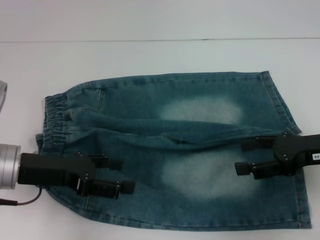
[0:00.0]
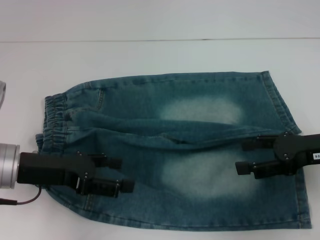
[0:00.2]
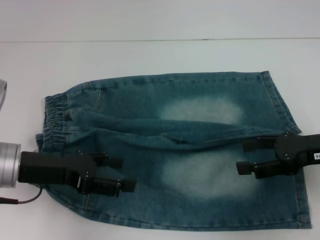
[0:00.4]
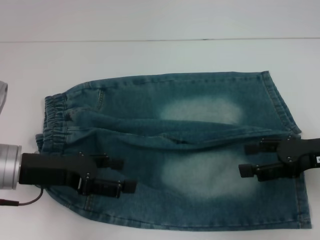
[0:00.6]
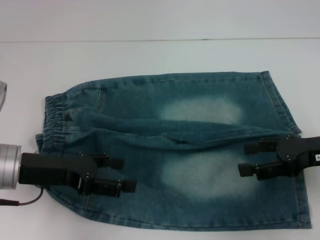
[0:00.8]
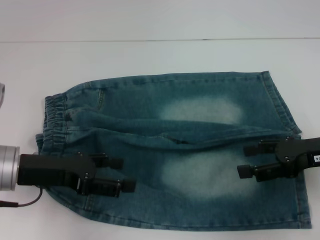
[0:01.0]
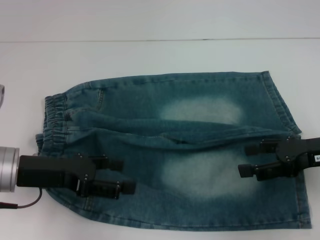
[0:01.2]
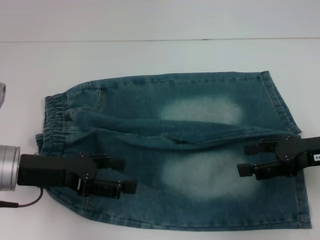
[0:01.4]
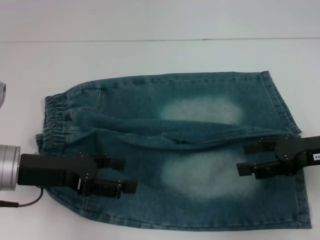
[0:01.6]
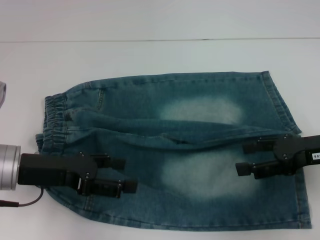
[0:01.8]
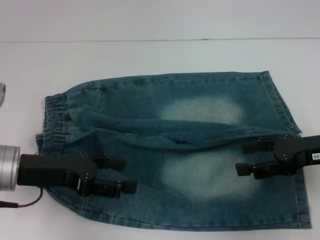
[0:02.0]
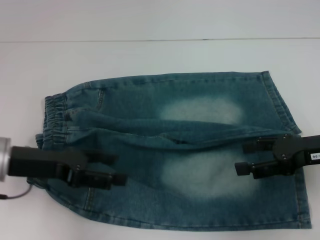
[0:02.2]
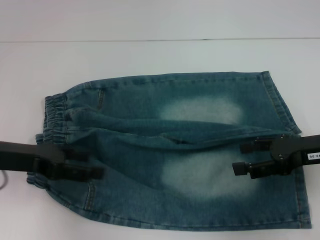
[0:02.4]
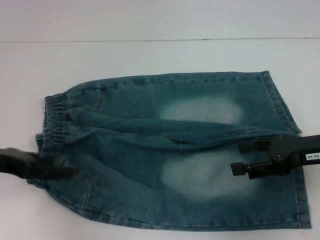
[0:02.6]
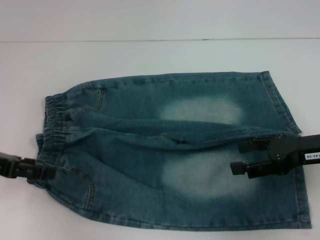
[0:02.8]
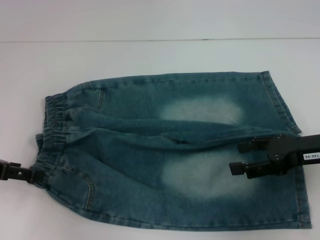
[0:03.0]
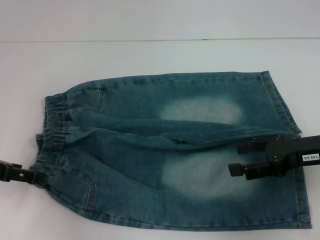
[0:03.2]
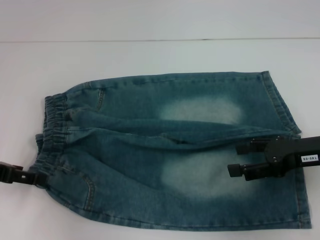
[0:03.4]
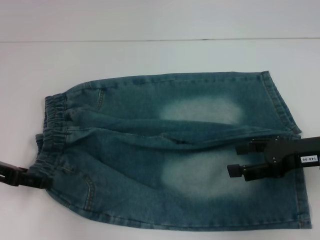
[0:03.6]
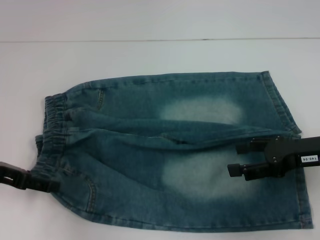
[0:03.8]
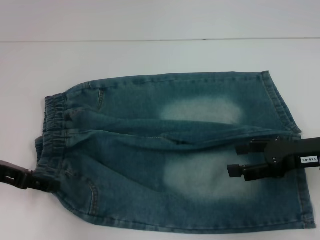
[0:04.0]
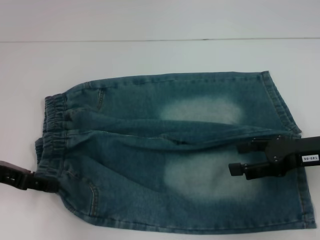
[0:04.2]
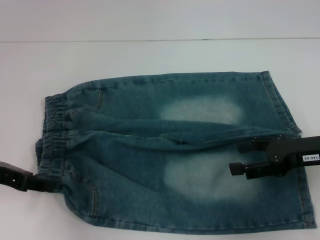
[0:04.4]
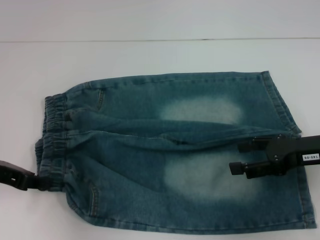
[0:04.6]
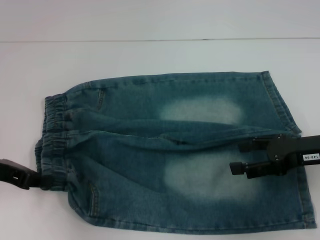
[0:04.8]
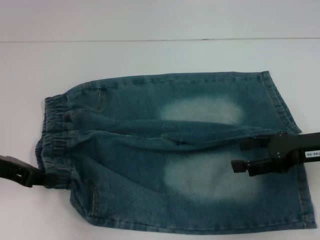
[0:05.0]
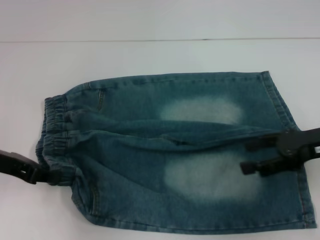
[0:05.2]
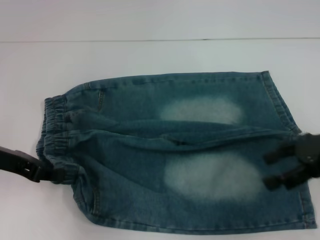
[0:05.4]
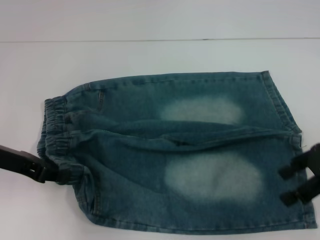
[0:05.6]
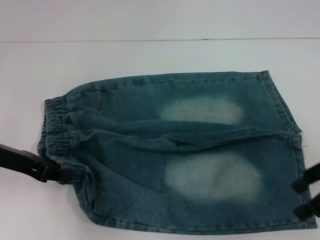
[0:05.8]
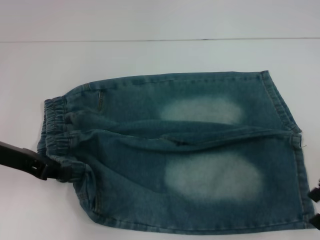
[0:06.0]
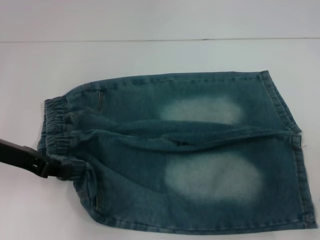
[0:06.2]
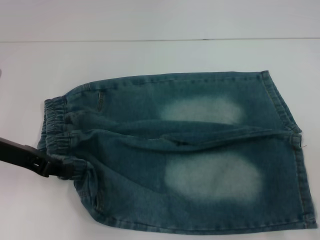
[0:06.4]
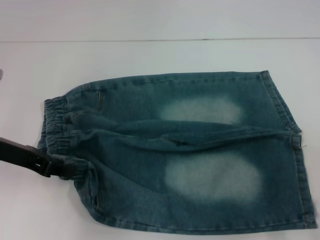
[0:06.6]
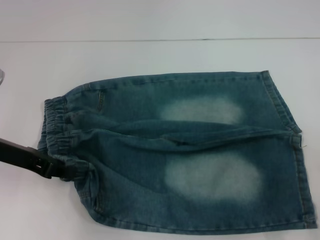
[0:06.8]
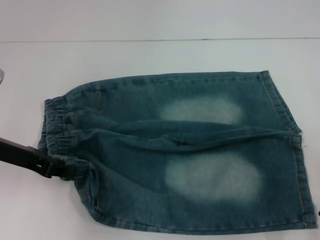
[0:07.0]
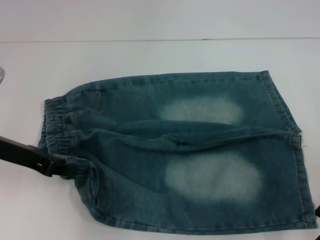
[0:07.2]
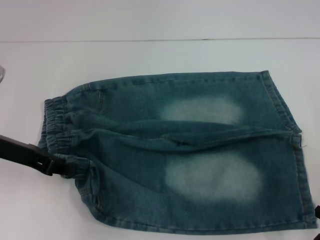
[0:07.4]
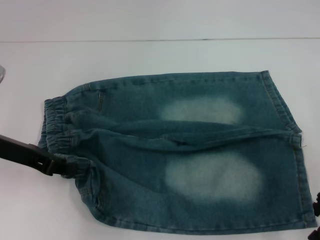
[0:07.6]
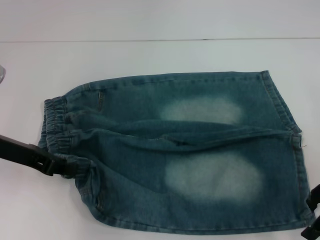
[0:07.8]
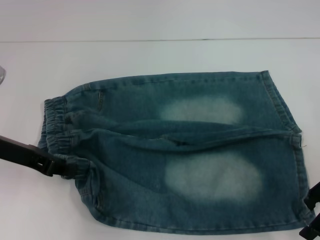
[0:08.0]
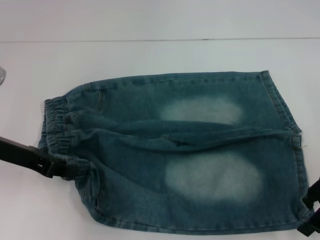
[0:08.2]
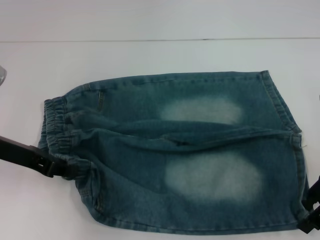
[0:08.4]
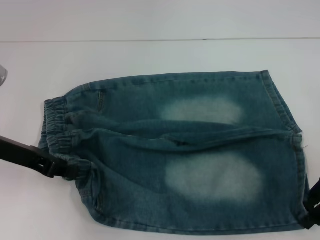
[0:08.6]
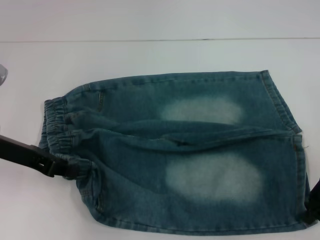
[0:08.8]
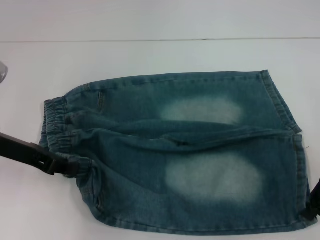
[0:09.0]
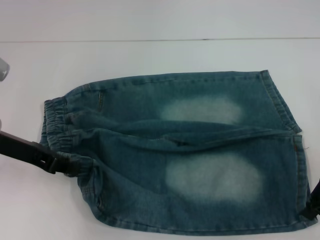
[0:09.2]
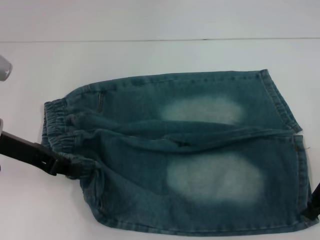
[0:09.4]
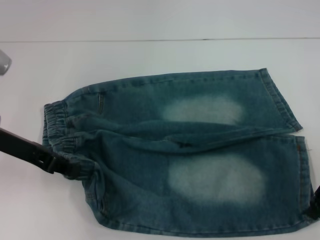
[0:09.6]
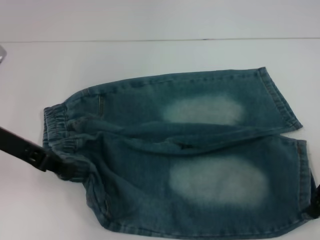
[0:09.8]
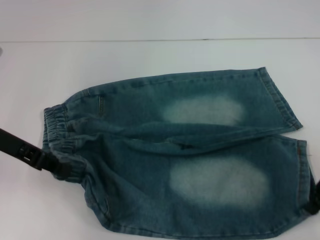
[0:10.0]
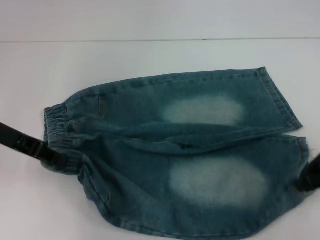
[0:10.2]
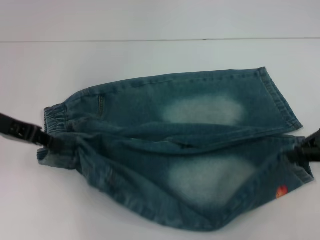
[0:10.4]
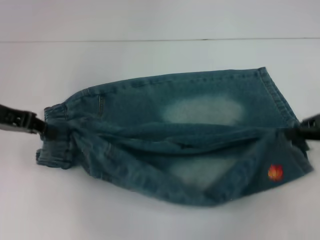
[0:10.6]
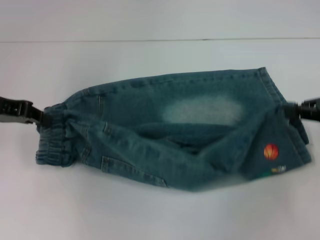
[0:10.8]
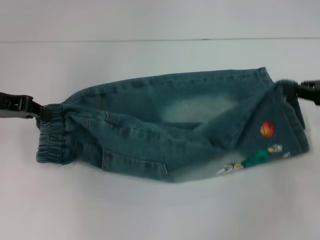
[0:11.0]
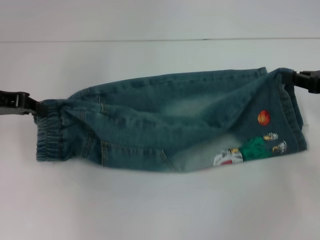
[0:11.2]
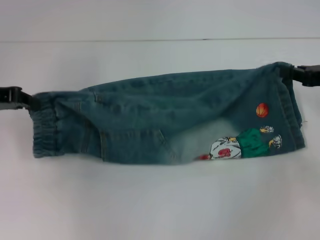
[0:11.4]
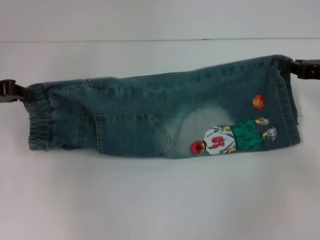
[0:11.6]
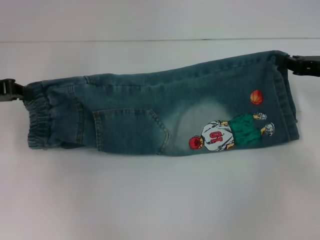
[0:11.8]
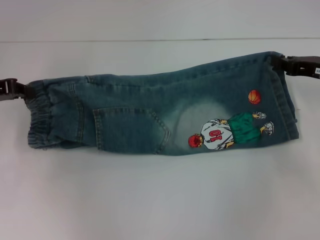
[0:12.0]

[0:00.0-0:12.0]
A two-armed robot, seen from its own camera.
Step, 0:00.0 to 0:03.8: Hold the lower left waistband with your left hand.
Step, 0:04.0 to 0:08.6: Grab the lower right pant leg with your right hand.
0:00.0 to 0:01.6: Both grippers stay about where they are.
0:01.6 to 0:03.0: The left gripper heads to the left, covering approximately 10 cm.
0:03.0 to 0:04.4: The left gripper closes up.
0:04.4 to 0:06.0: The right gripper is displaced upward by approximately 5 cm; the left gripper closes.
0:06.0 to 0:07.6: The grippers make only small movements.
0:07.6 to 0:09.0: The right gripper closes.
0:10.4 to 0:12.0: The right gripper travels forward by approximately 5 cm, while the left gripper moves about 5 cm.

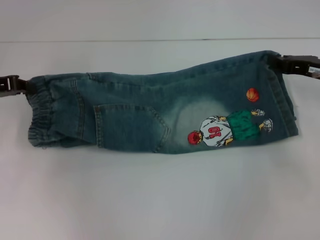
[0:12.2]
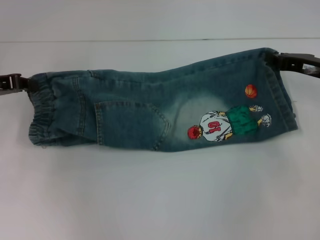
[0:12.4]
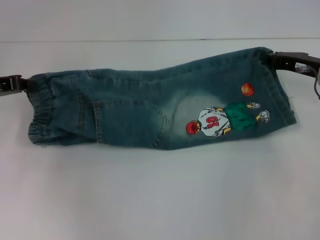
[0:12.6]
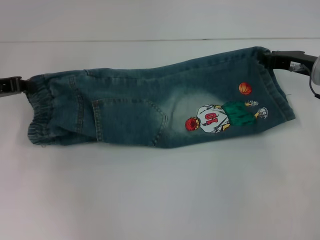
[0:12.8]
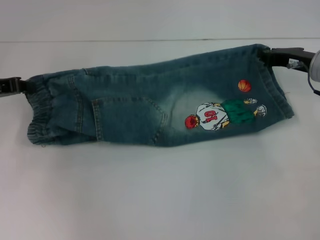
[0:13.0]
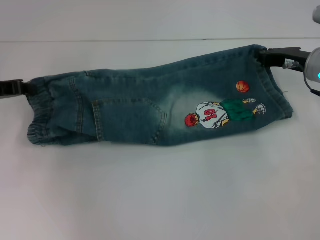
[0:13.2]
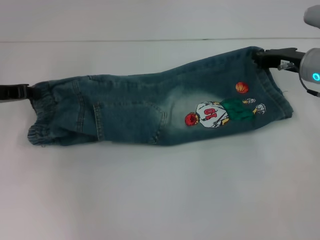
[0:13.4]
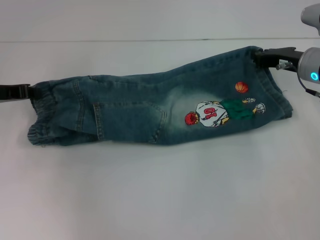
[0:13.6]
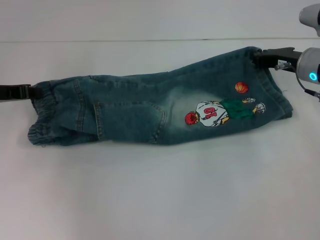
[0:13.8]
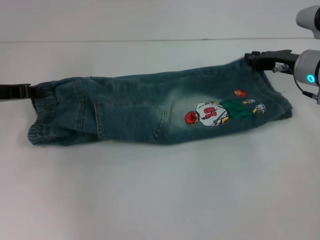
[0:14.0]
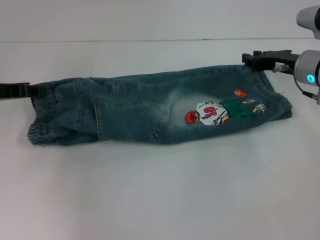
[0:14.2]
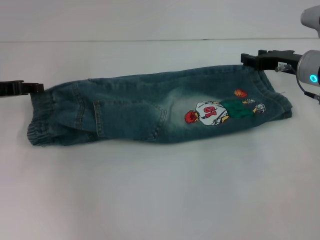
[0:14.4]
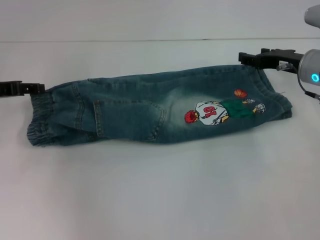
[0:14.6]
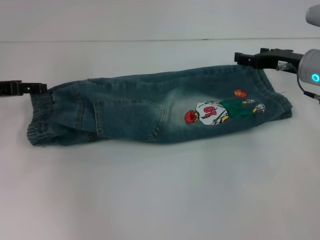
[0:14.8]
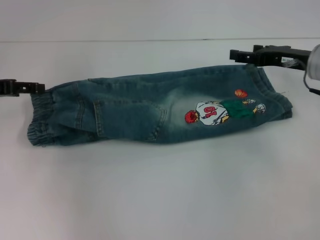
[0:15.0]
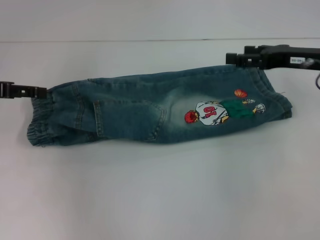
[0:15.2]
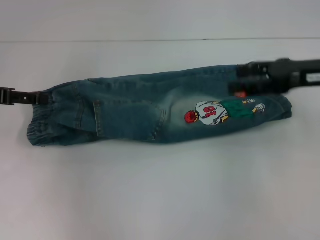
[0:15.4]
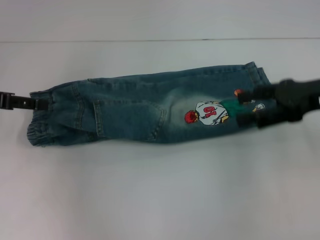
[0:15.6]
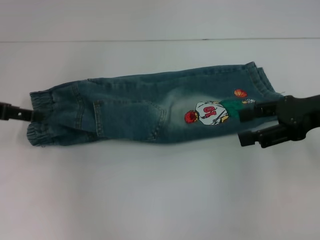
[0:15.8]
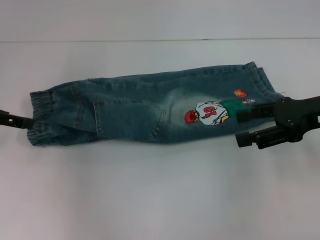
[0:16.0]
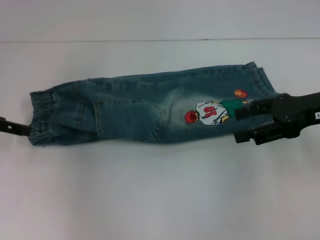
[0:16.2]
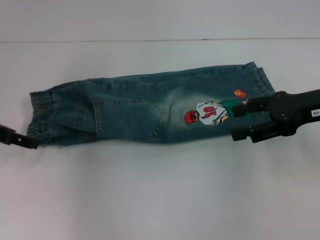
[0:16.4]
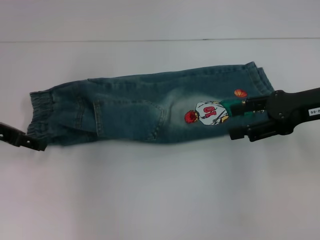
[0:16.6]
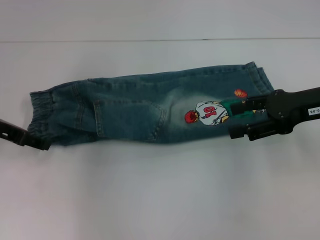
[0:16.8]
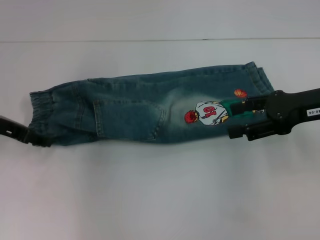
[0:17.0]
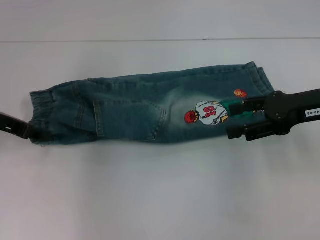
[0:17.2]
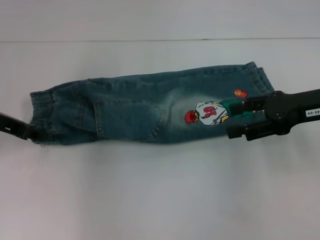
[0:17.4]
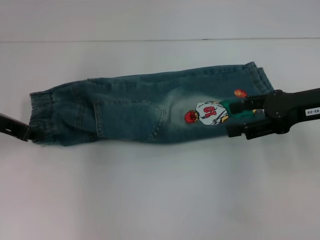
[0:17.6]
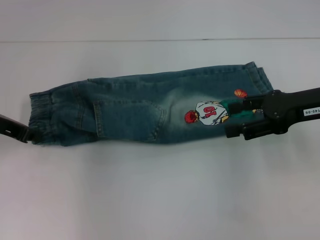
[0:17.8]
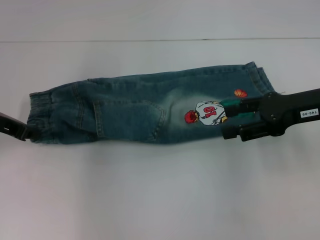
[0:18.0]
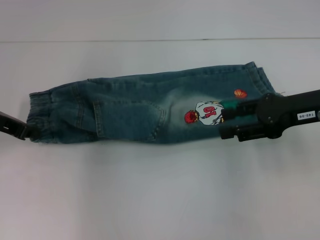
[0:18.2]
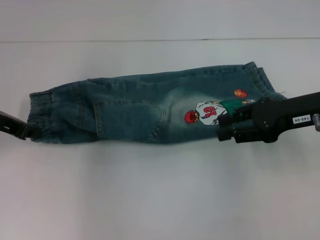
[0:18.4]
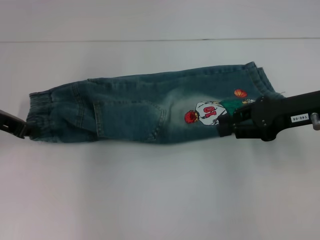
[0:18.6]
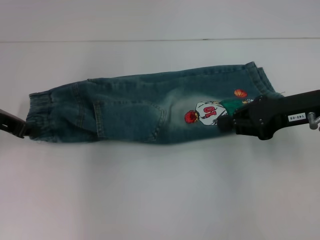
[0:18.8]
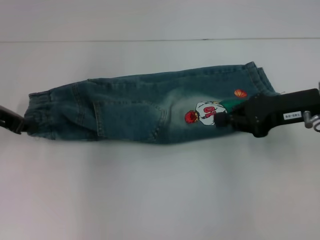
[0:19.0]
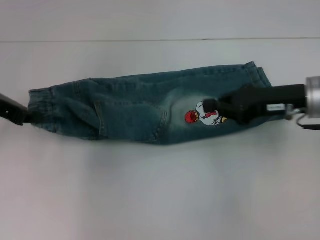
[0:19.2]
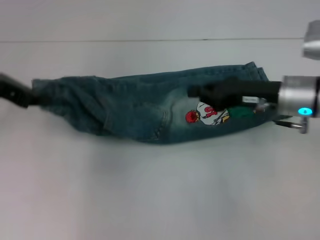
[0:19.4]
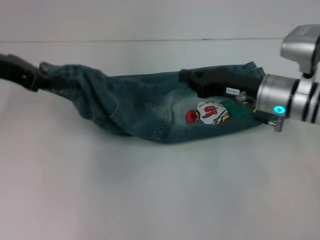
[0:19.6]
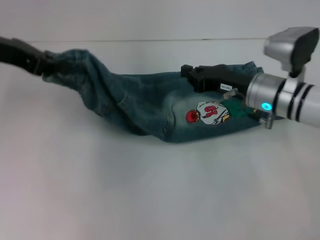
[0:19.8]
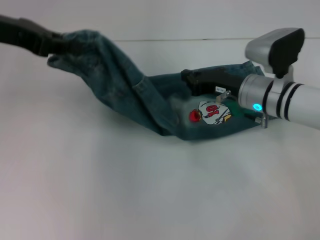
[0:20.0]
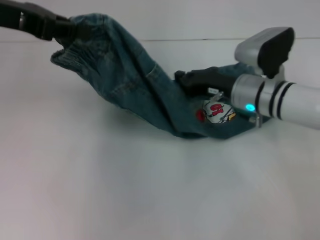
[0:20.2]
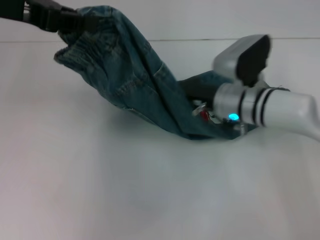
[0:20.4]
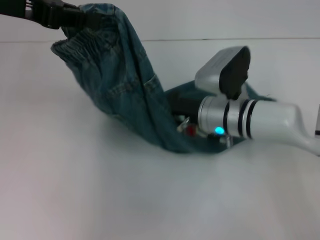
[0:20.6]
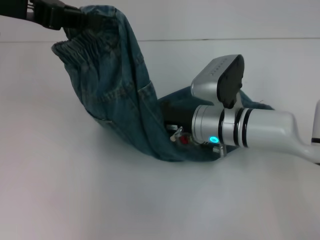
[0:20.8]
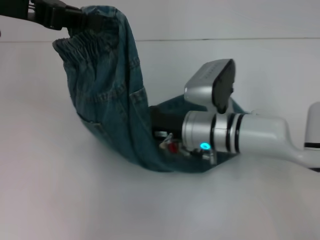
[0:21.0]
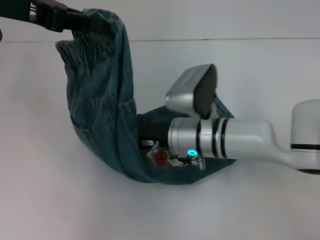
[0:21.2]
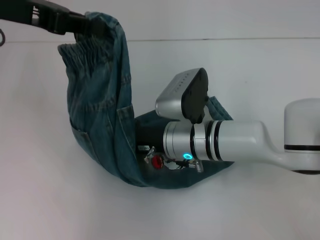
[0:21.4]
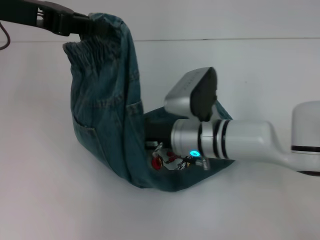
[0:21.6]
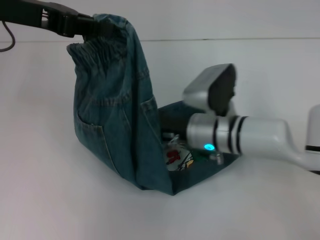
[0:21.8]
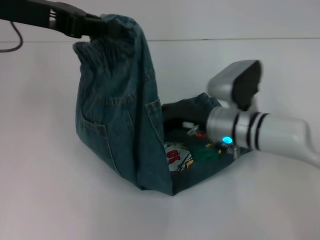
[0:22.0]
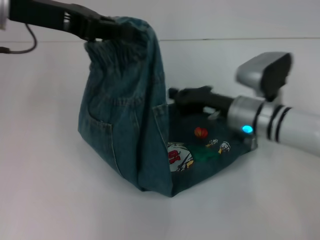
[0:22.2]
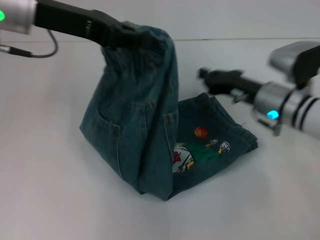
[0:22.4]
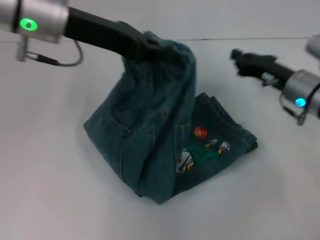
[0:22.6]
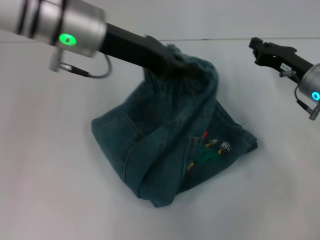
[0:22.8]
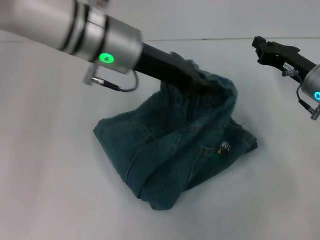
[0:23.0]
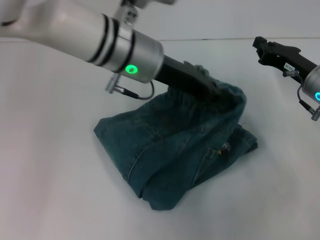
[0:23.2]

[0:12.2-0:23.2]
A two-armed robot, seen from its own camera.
Step, 0:14.2 to 0:14.4: Fold upward with your left hand.
Step, 0:14.6 to 0:17.4: Hold the waistband with your left hand.
Step, 0:17.6 to 0:21.4: Press the middle of the pants with your right hand.
0:12.2 to 0:13.8: The right gripper is displaced to the left by approximately 5 cm.
0:13.8 to 0:15.4: The left gripper goes about 5 cm upward, and opens its fingers. The right gripper goes about 10 cm upward and backward, and opens.
0:15.4 to 0:17.0: The left gripper shifts by about 5 cm.
0:17.0 to 0:18.4: The left gripper closes.
0:18.4 to 0:20.0: The right gripper moves to the left and downward, approximately 10 cm, and closes, while the left gripper is displaced upward by roughly 10 cm.
0:20.0 to 0:21.6: The right gripper is displaced to the left and backward by approximately 10 cm.
0:21.6 to 0:23.2: The right gripper moves to the right, approximately 20 cm, while the left gripper travels to the right and downward by some 20 cm.
